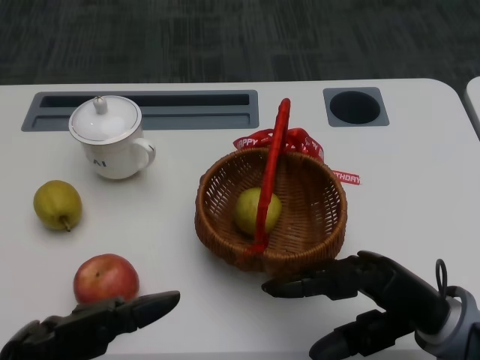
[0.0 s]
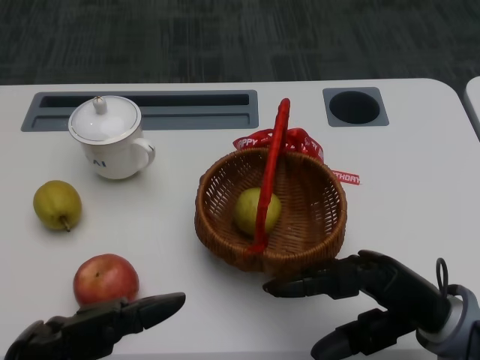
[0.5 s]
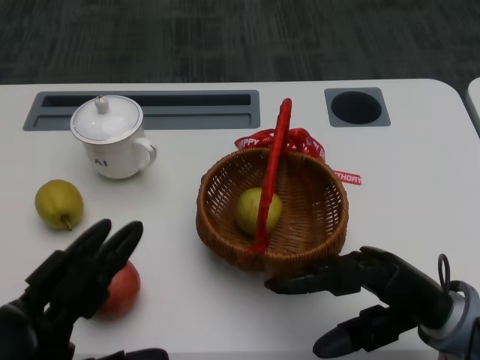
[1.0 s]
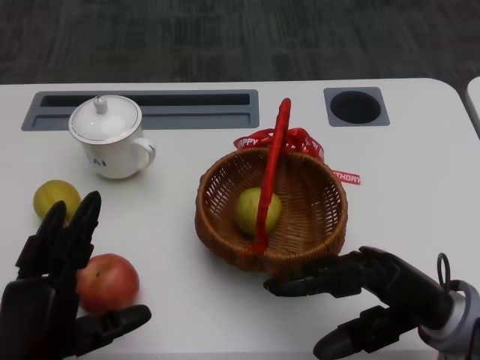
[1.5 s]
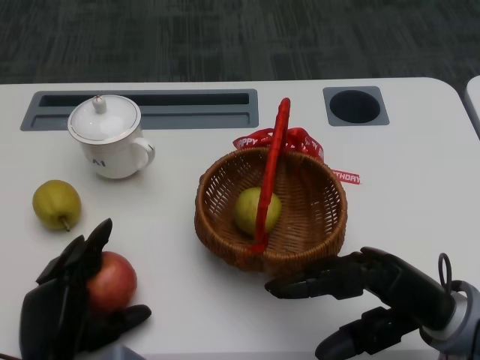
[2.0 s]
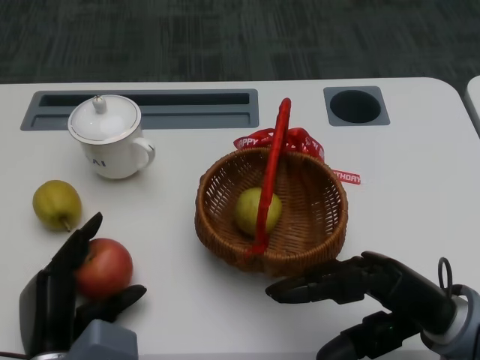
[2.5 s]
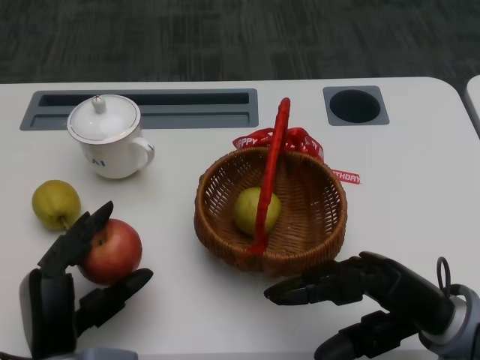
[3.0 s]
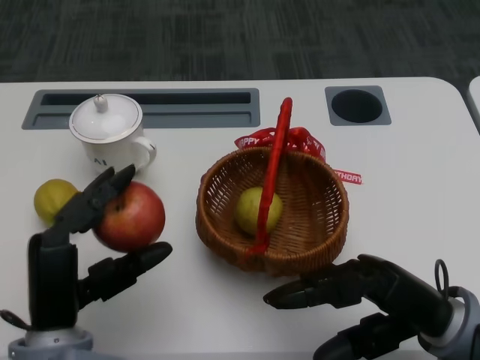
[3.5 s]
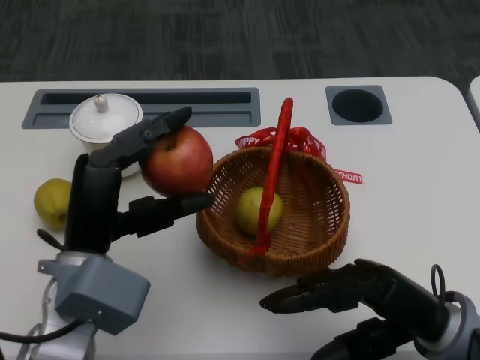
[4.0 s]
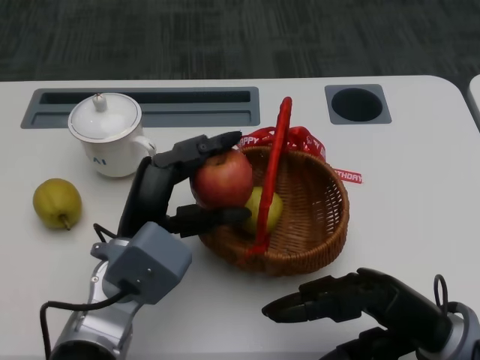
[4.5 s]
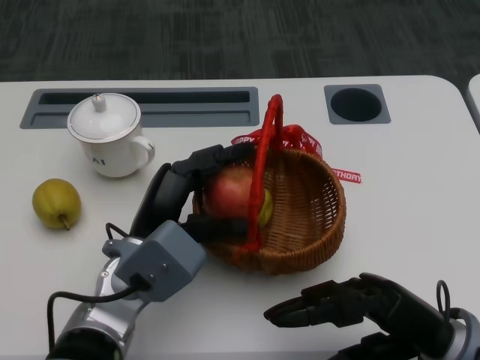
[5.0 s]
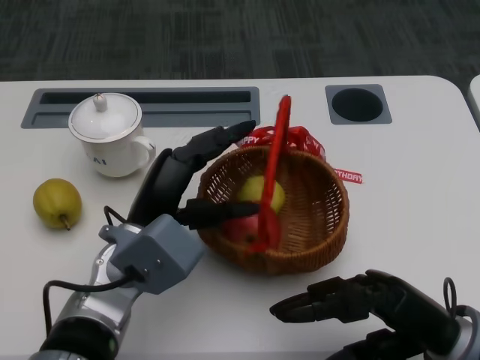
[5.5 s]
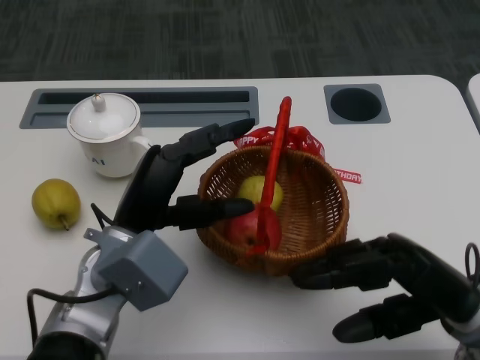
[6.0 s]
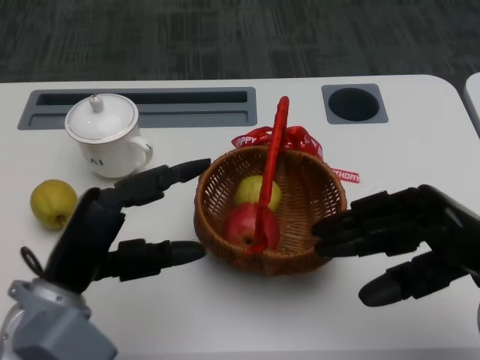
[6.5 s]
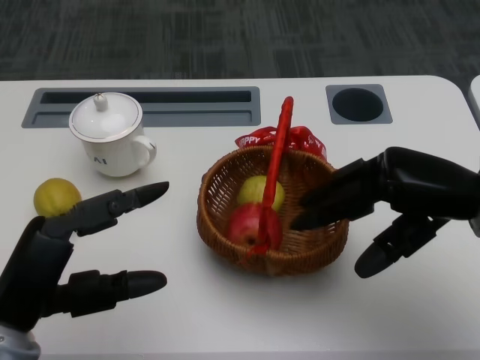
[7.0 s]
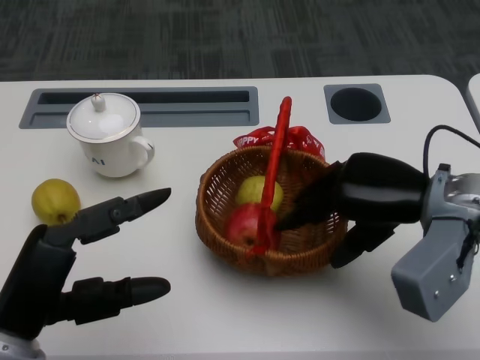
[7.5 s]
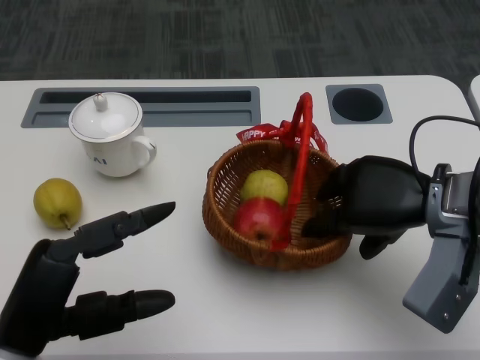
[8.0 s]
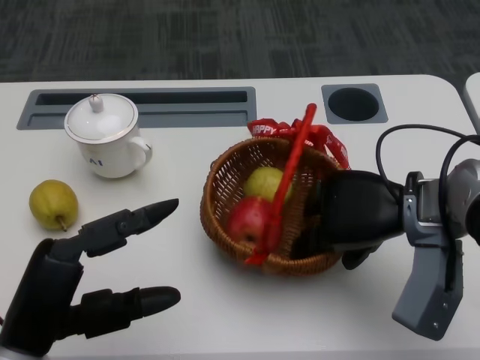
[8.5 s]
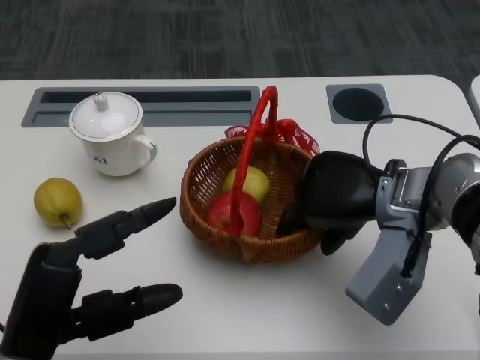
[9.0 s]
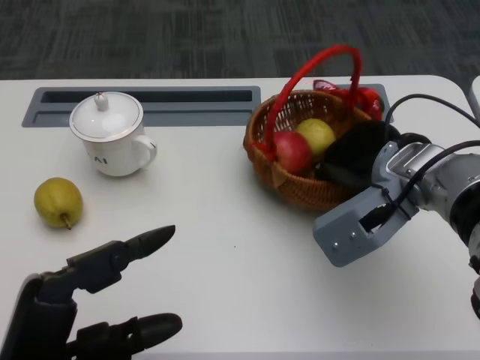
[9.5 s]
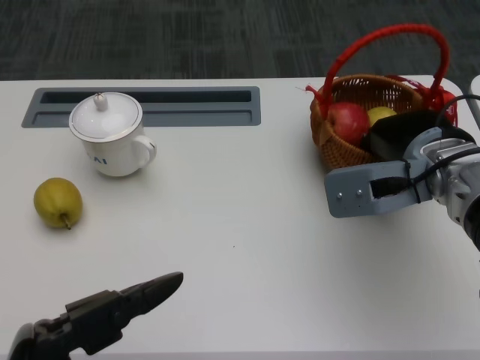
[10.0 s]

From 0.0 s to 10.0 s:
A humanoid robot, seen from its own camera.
Step, from 0.5 s to 2.0 s: Grasp the apple with the left gripper.
Step, from 2.5 s to 4.0 s: Place the apple into the basket with the left gripper.
Step, from 4.5 s to 6.5 s: Grasp the basket with the right gripper.
Step, from 7.0 s to 9.0 s: Move the basket to the front of the table with the right gripper.
From 2.0 s to 4.0 s: The left hand moves upward and forward, approximately 10 cm.
From 6.0 s to 8.0 s: The right hand is displaced forward and upward by some 10 cm; the left hand travels backward and to the left by approximately 15 cm.
From 8.0 s to 10.0 s: The left hand shifts approximately 10 cm backward.

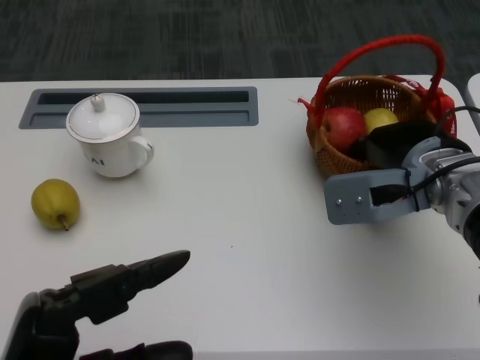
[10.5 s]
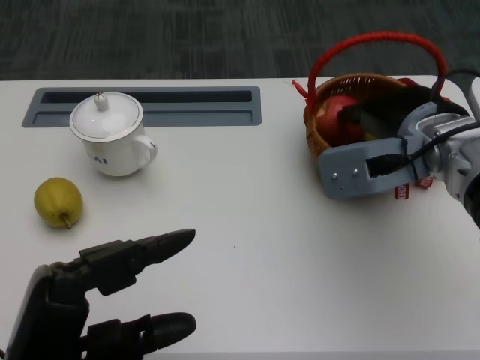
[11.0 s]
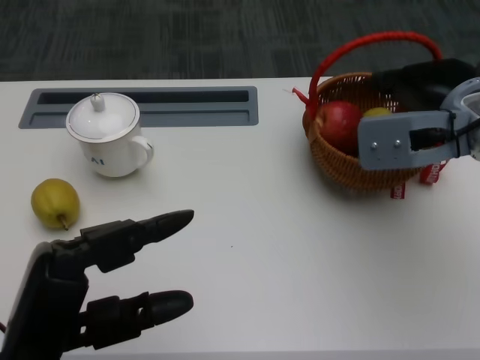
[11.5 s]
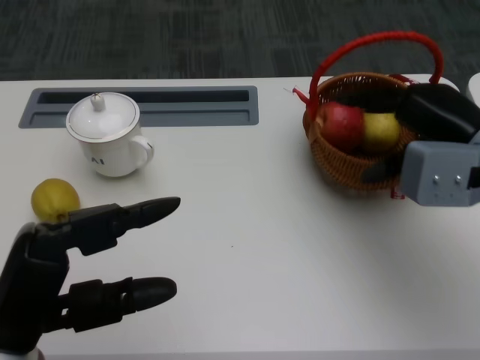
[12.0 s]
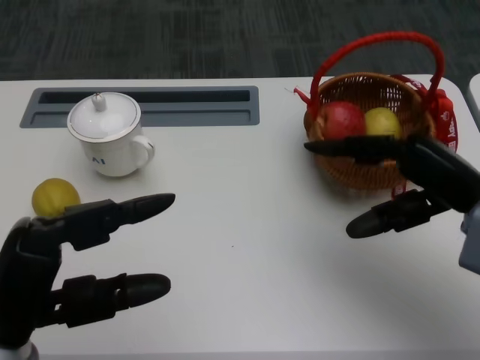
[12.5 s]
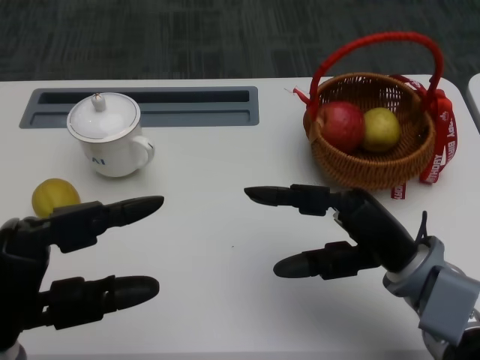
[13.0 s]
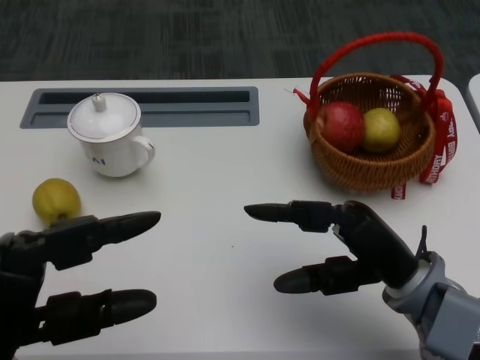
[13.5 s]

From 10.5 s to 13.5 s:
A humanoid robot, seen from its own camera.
From 10.5 s to 12.0 s: The left hand goes some 5 cm forward. Meanwhile the right hand moves roughly 5 cm.
From 12.0 s to 13.5 s: The right hand heads backward, downward and to the left, covering approximately 15 cm.
